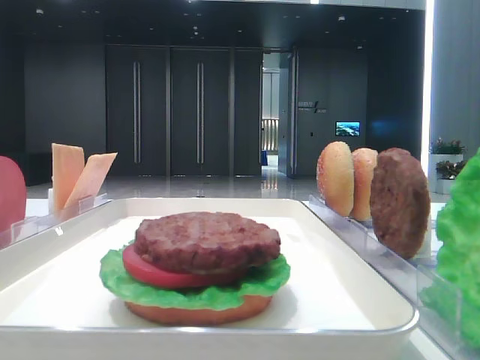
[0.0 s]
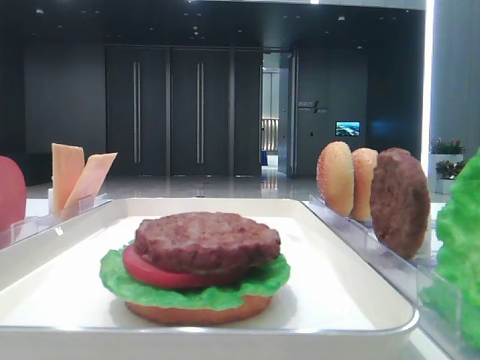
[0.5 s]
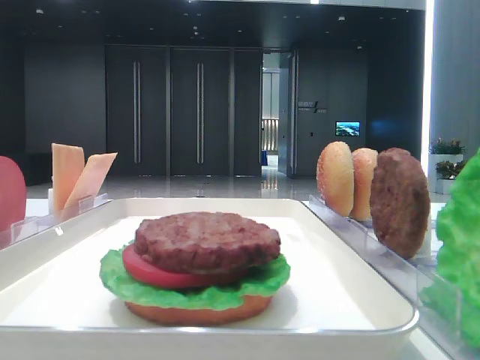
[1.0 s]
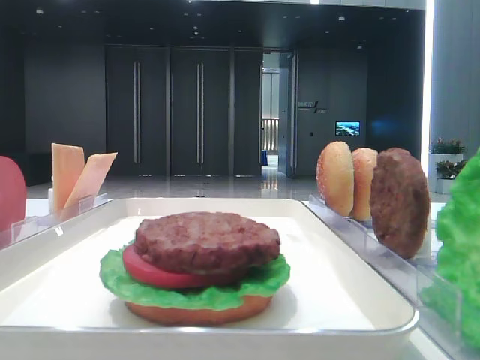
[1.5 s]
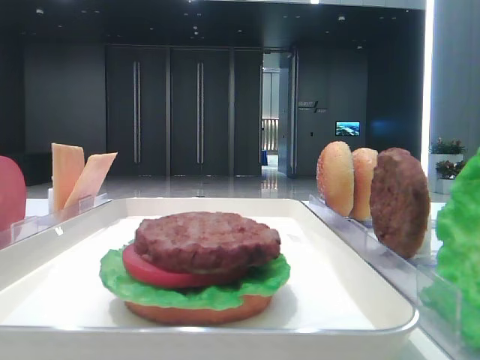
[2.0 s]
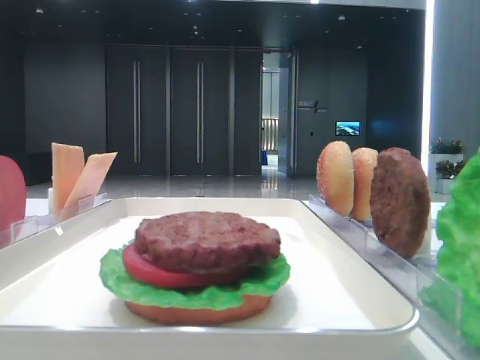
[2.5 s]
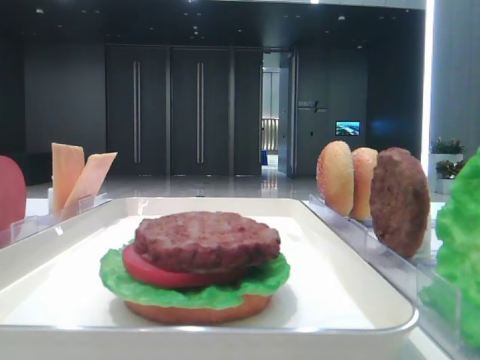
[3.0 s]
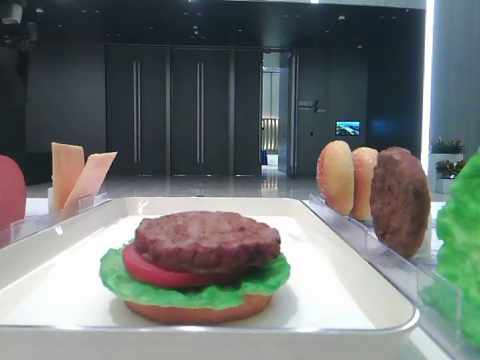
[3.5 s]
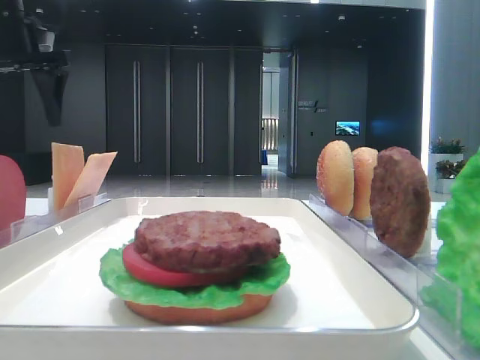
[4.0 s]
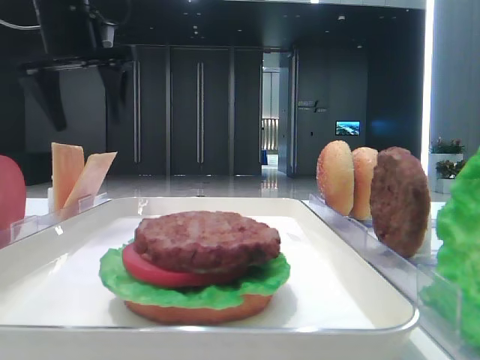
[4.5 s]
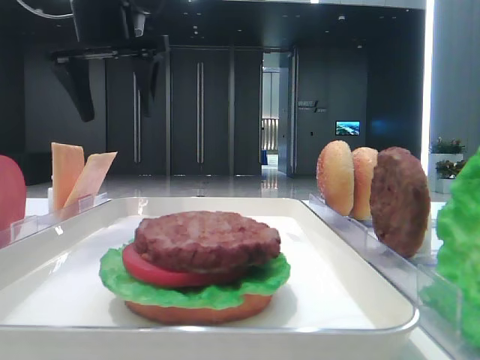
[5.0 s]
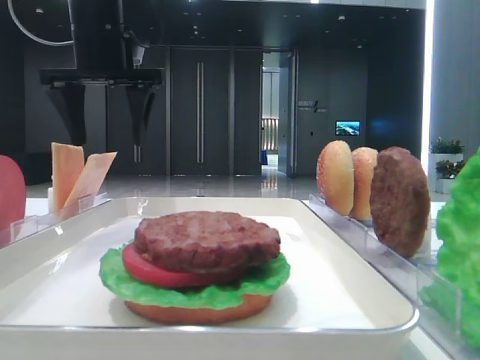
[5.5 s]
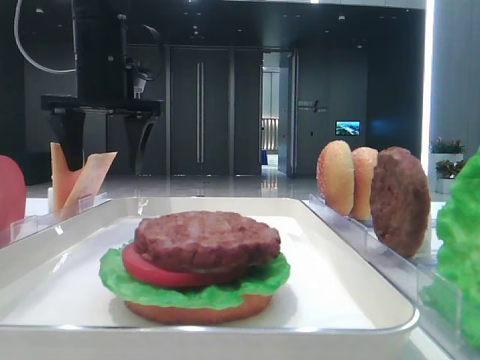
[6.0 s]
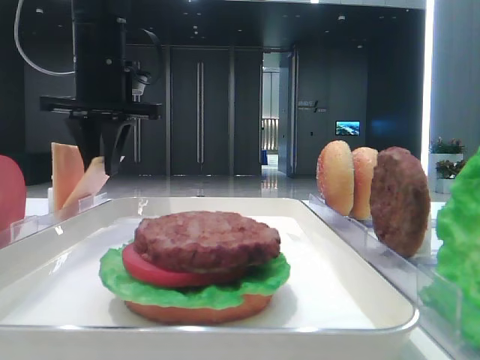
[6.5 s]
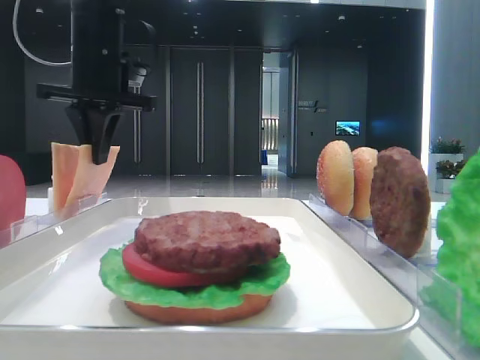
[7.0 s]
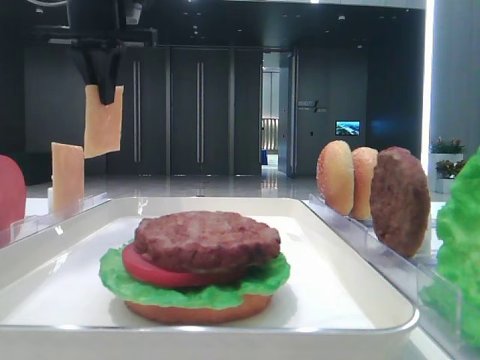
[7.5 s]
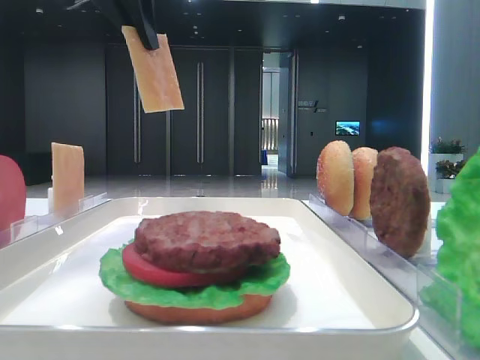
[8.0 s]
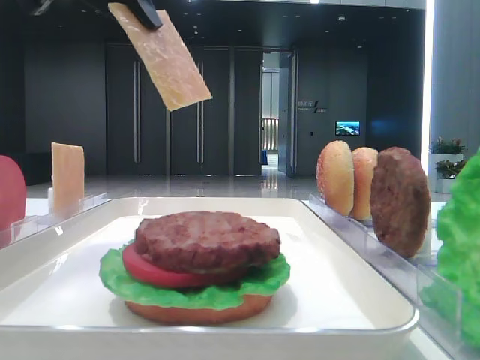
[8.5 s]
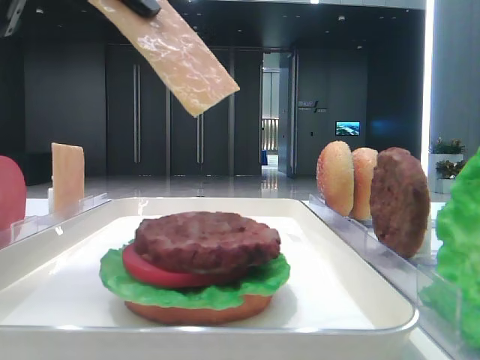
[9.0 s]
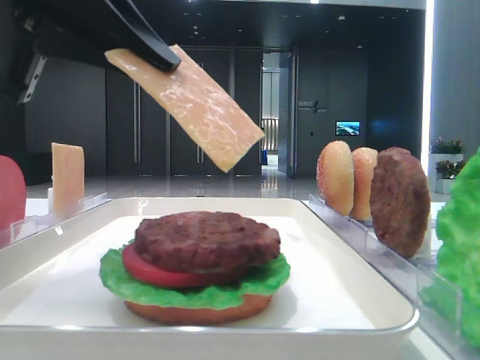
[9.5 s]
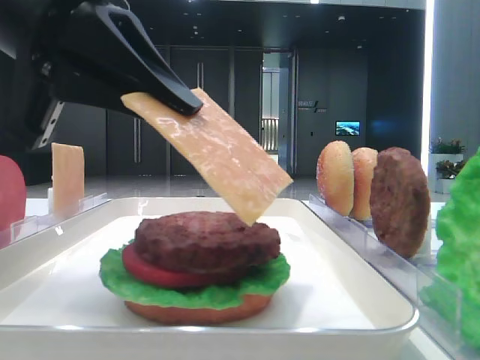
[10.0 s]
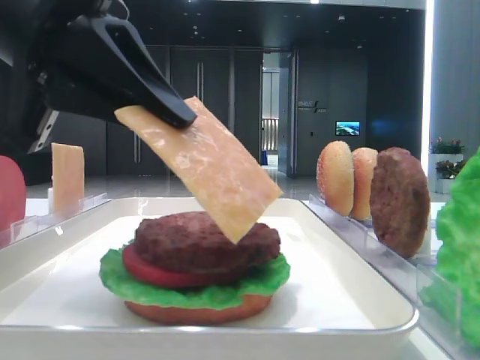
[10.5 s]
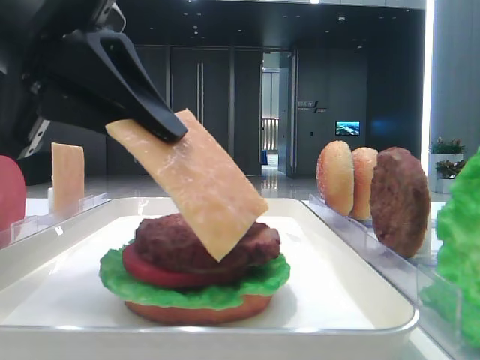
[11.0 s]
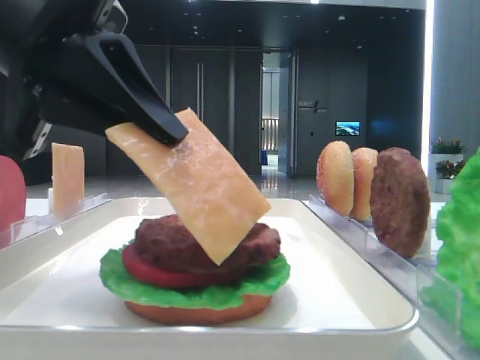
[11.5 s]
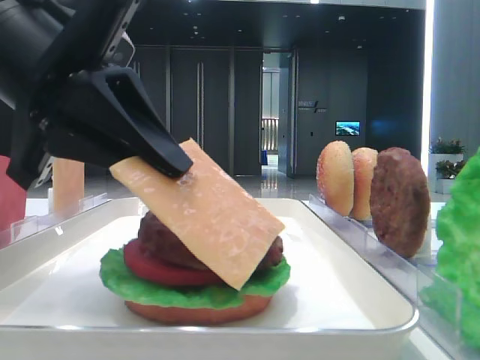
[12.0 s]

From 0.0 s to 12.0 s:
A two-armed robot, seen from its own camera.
Step, from 0.0 s to 6.5 s: Pick up the cheese slice with the left hand.
From 2.0 s to 4.0 s: The left gripper travels forward by approximately 35 cm.
From 4.0 s to 6.0 s: The left gripper heads to the right and downward, covering roughly 15 cm.
From 6.0 s to 8.0 s: The left gripper moves upward and backward, approximately 15 cm, and closes its fingers.
From 8.0 s to 10.0 s: The left gripper is displaced backward and downward by approximately 20 cm.
From 10.0 s to 12.0 s: There are only small adjustments of the grippers.

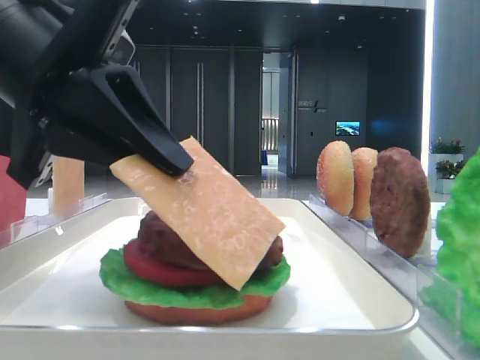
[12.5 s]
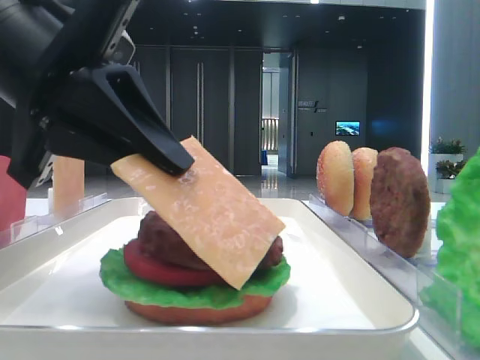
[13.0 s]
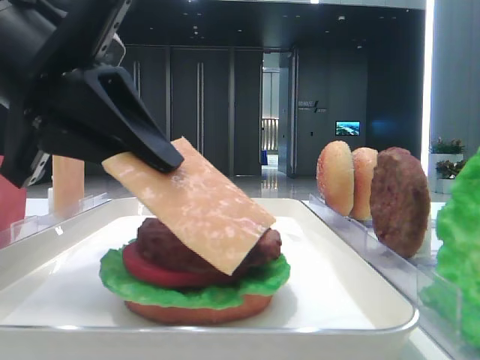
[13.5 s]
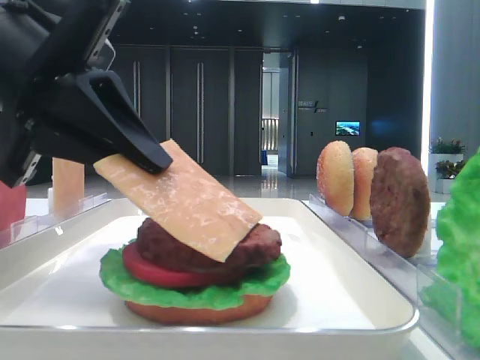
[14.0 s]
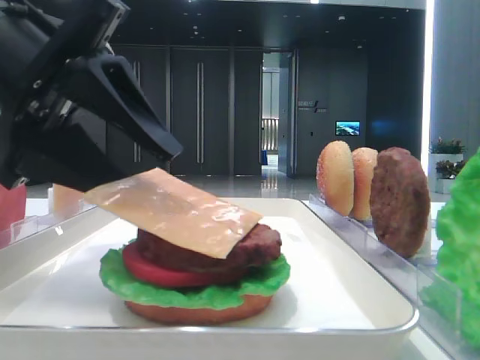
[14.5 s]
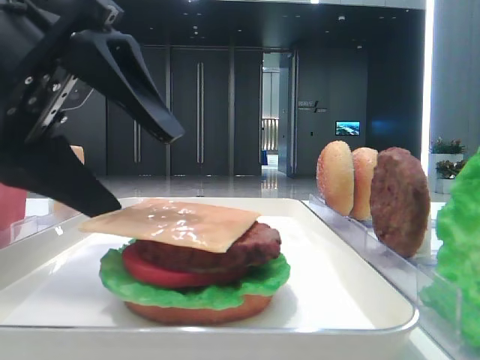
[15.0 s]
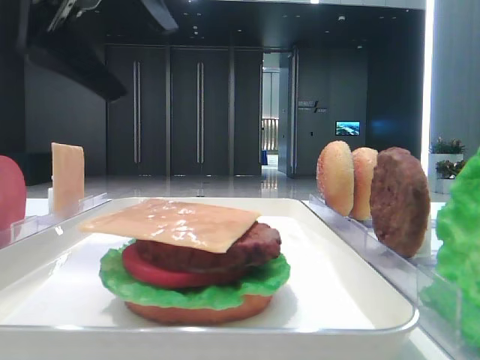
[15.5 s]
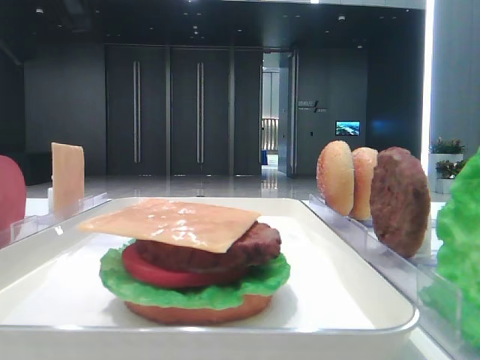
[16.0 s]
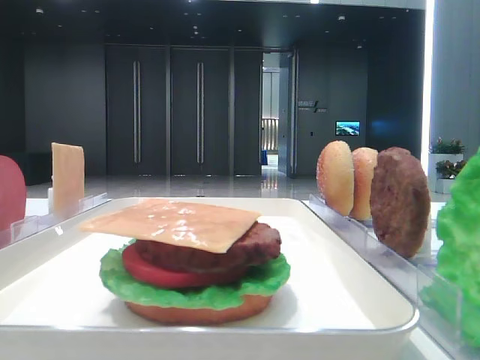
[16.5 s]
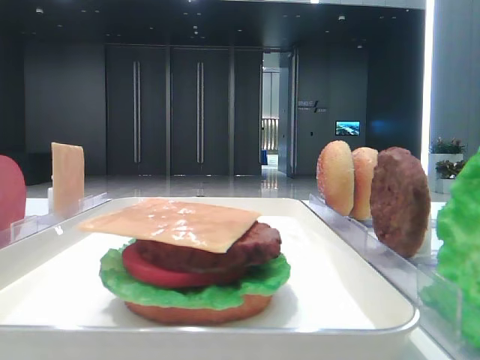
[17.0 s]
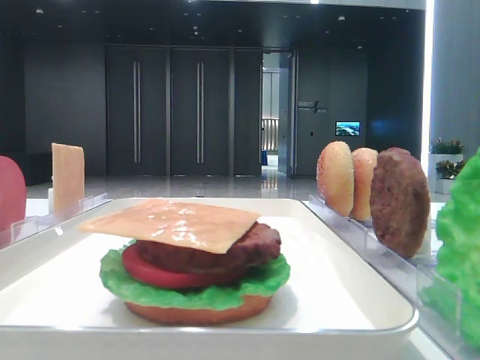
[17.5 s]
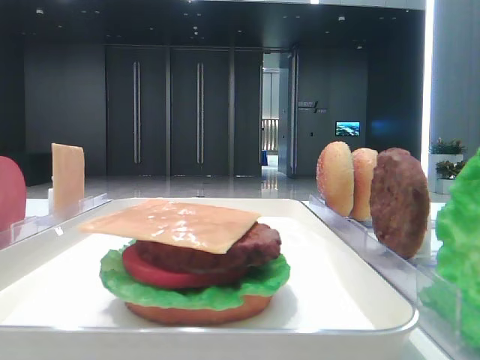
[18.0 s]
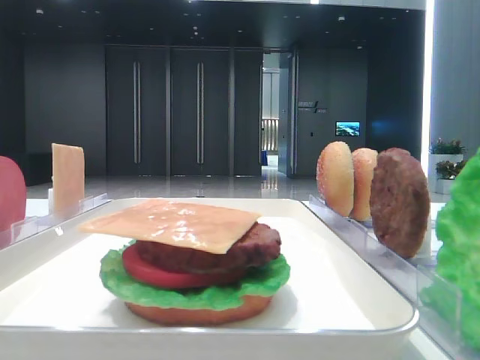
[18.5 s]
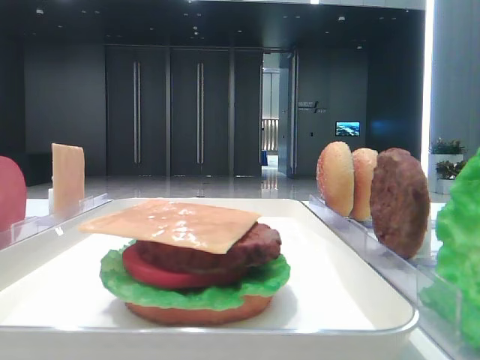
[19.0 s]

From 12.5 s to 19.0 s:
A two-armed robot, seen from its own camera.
Step, from 12.5 s to 15.0 s: Place the cheese slice on the patty with the left hand.
From 12.5 s to 14.5 s: The left gripper opens up.
From 14.5 s to 17.0 s: The left gripper moves to the left and upward, approximately 25 cm, and opens its fingers.
From 17.0 s to 19.0 s: The left gripper is displaced backward by approximately 30 cm.

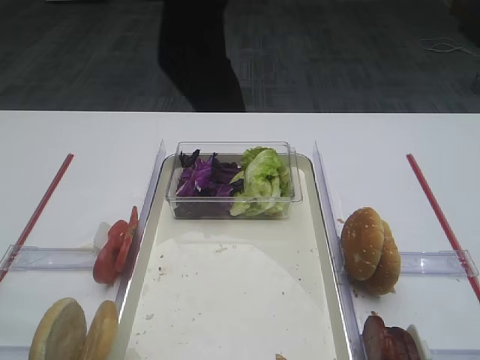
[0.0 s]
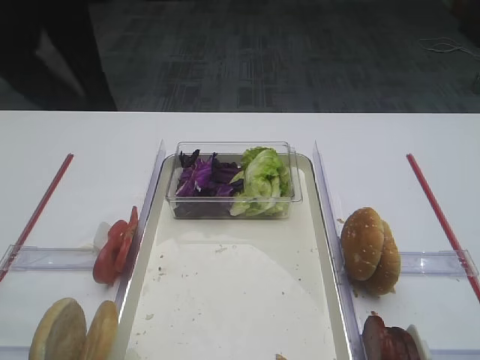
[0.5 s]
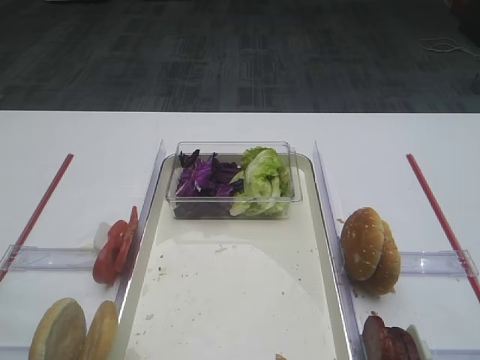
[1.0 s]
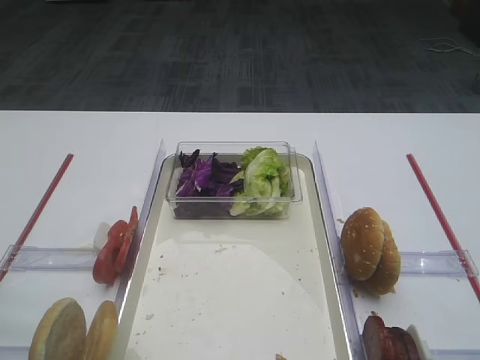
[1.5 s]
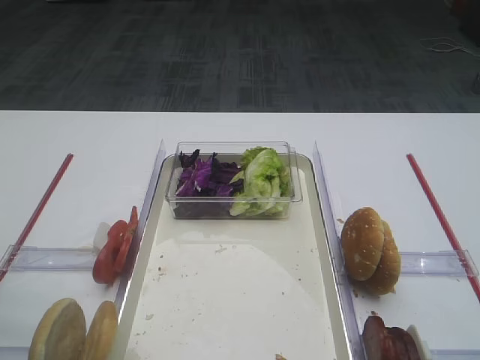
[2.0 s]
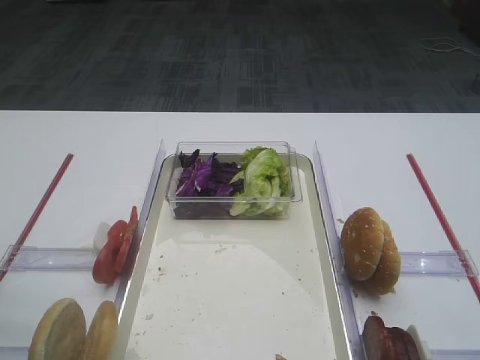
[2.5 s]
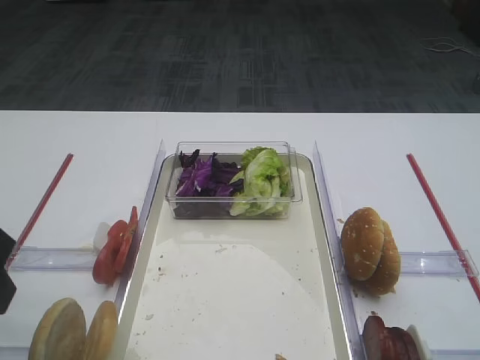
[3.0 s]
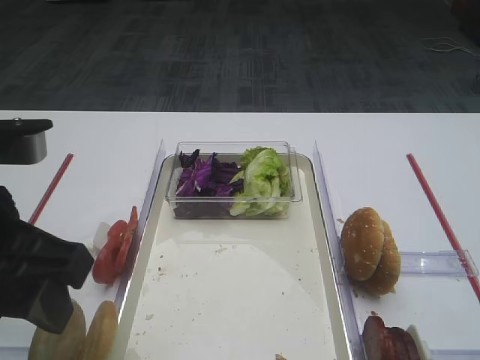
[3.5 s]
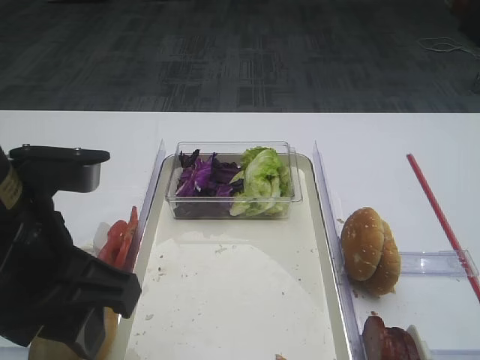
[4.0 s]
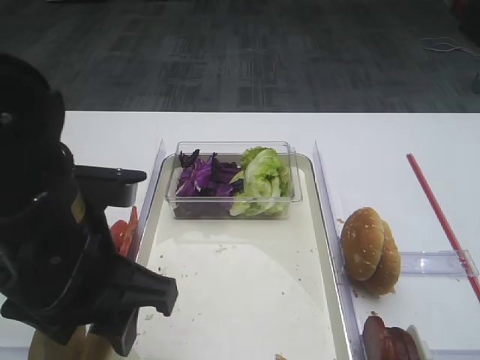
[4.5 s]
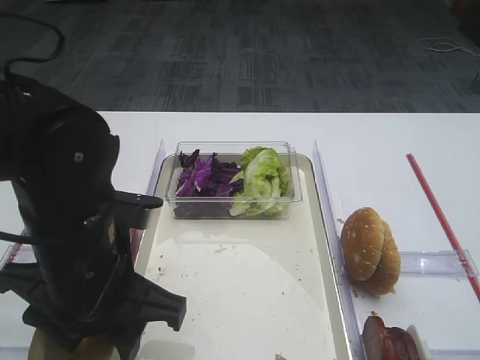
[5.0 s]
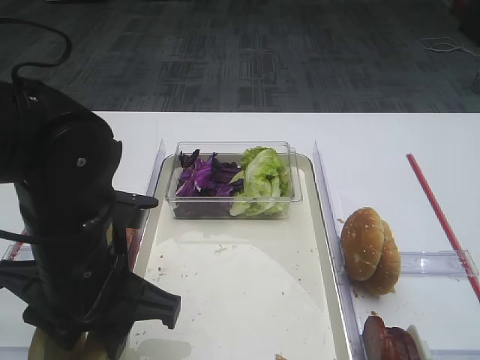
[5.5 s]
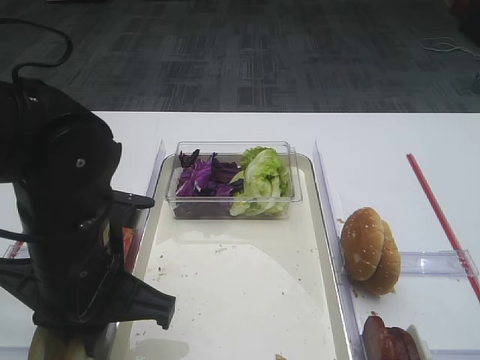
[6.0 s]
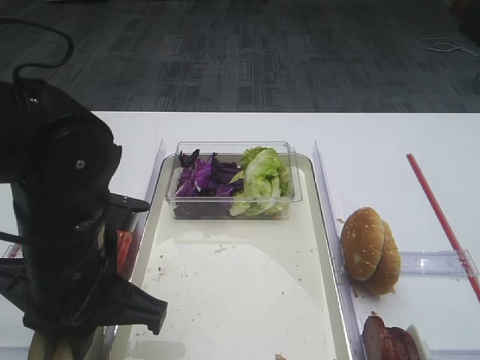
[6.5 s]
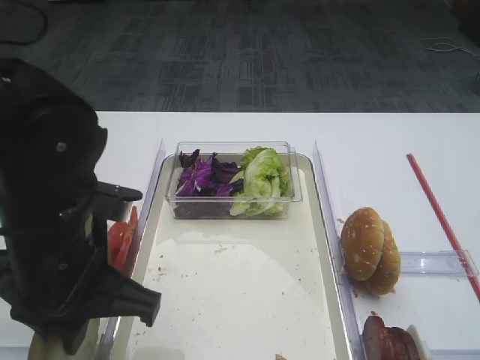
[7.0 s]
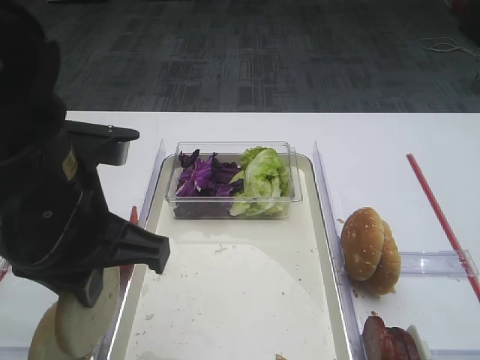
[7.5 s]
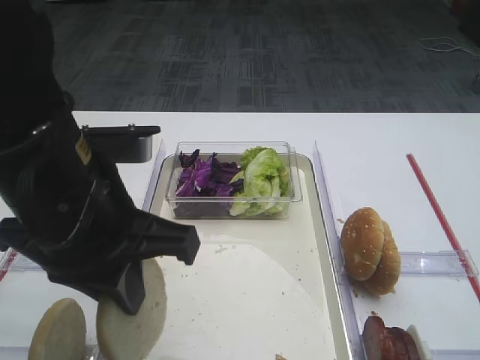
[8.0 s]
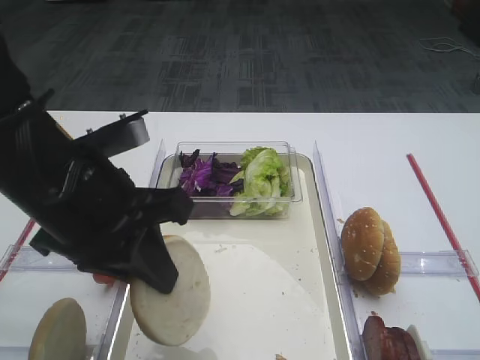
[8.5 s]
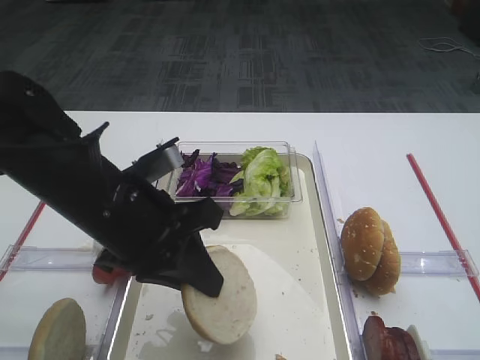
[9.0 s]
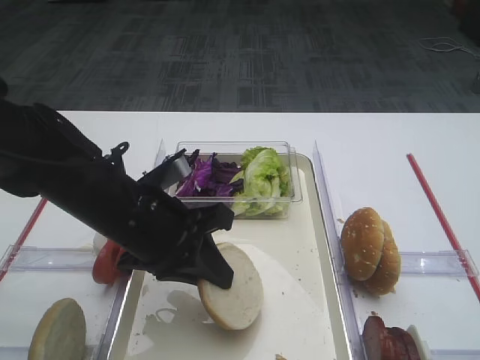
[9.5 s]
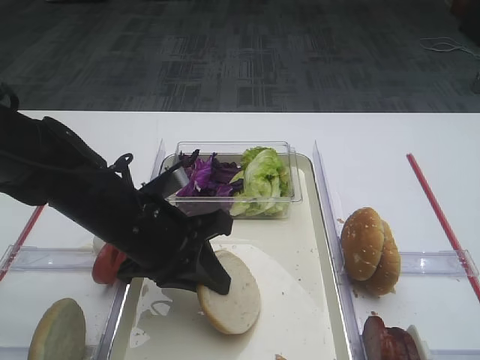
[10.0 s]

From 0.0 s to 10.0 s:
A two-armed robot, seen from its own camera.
Step, from 0.0 s to 7.0 s: Pick up the bread slice with the left gripper.
From 2.0 s to 4.0 s: The left gripper shifts roughly 15 cm to the right.
From 4.0 s to 6.0 s: The left gripper heads downward, covering some 5 cm, and closes.
From 6.0 s to 8.0 s: The left gripper shifts about 5 cm upward.
From 8.0 s to 10.0 s: The left gripper is displaced downward and forward by some 15 cm.
